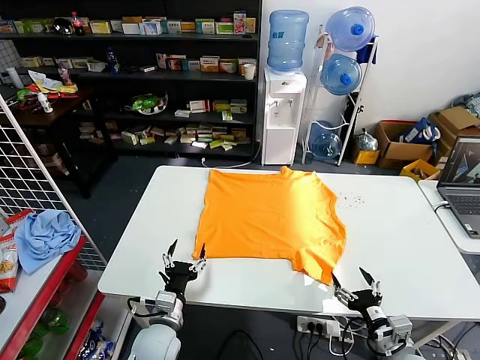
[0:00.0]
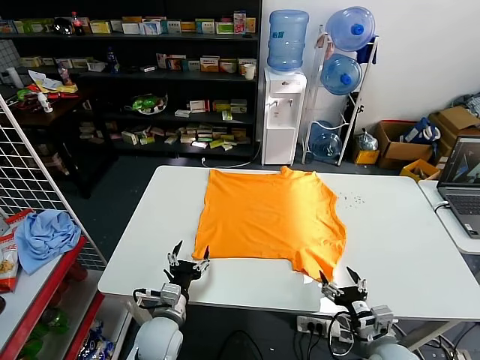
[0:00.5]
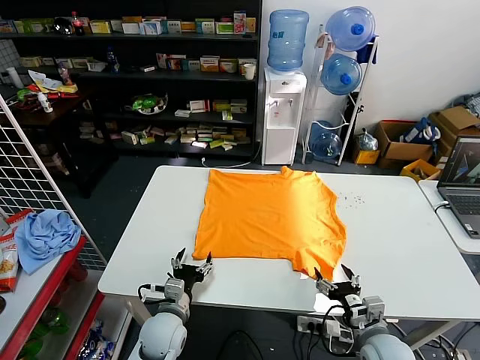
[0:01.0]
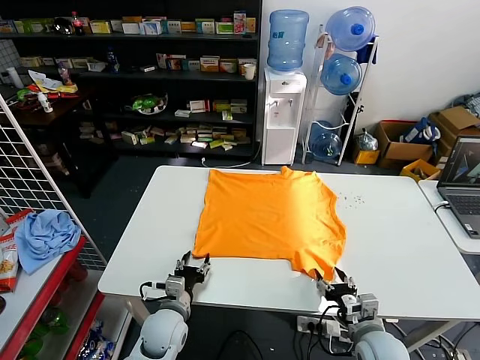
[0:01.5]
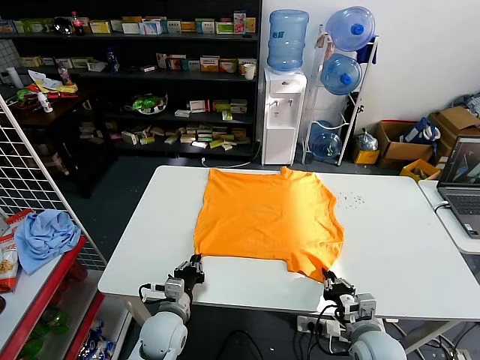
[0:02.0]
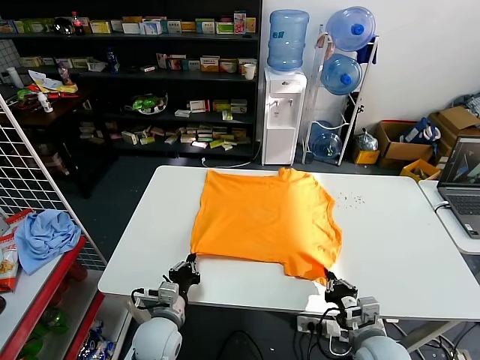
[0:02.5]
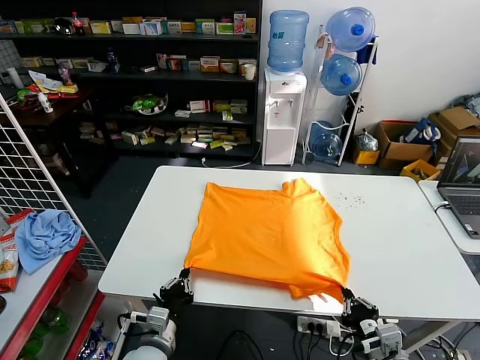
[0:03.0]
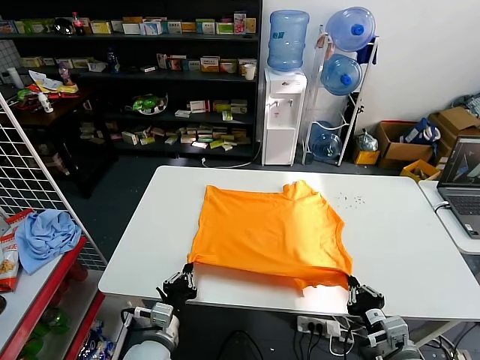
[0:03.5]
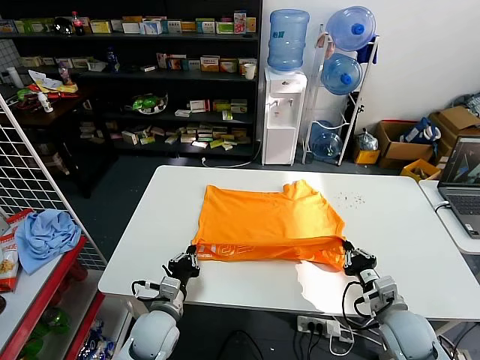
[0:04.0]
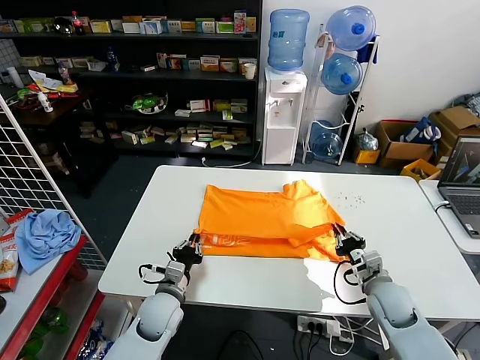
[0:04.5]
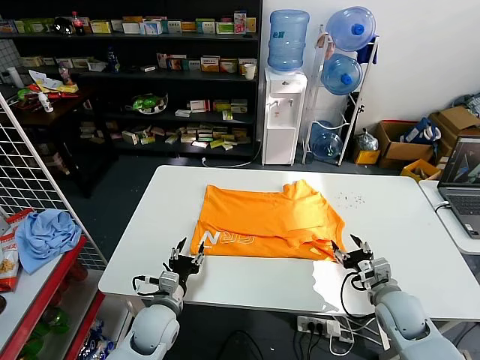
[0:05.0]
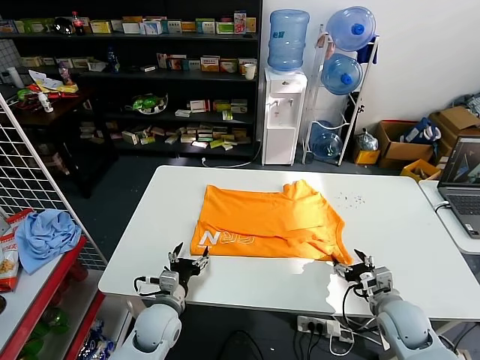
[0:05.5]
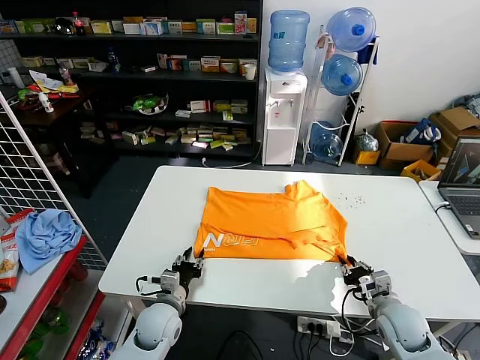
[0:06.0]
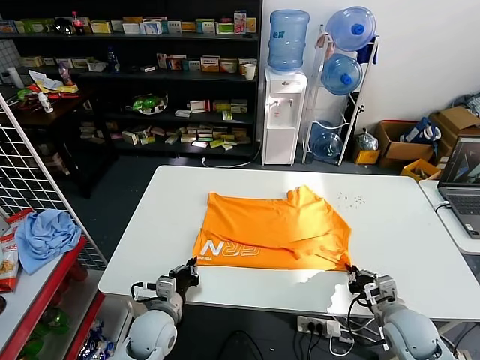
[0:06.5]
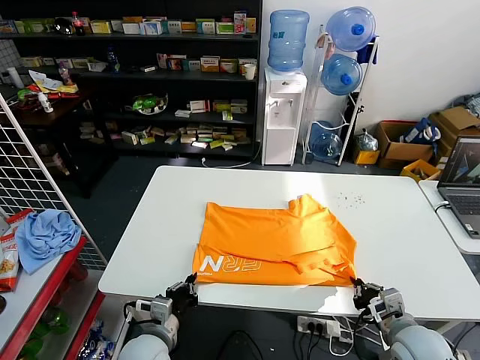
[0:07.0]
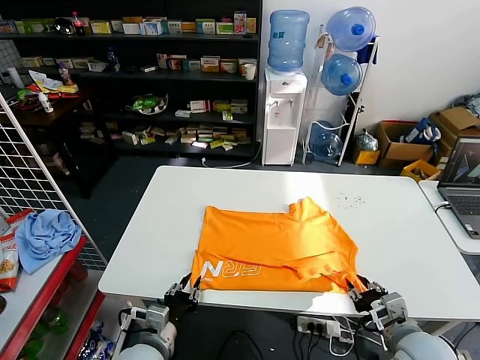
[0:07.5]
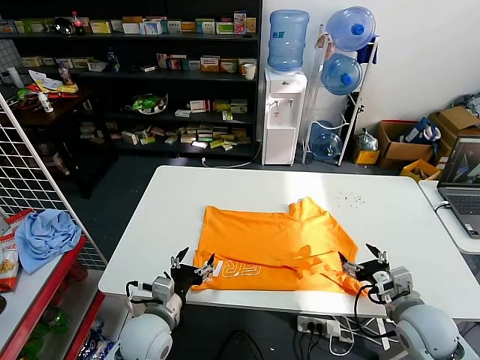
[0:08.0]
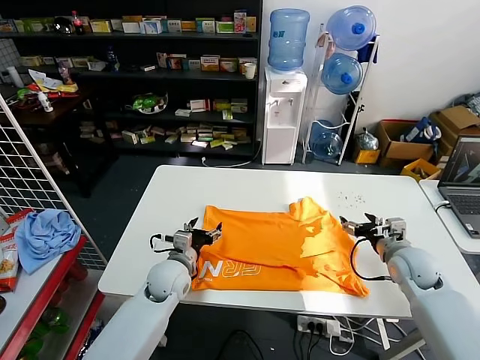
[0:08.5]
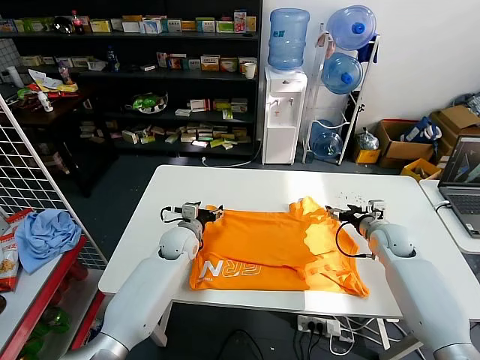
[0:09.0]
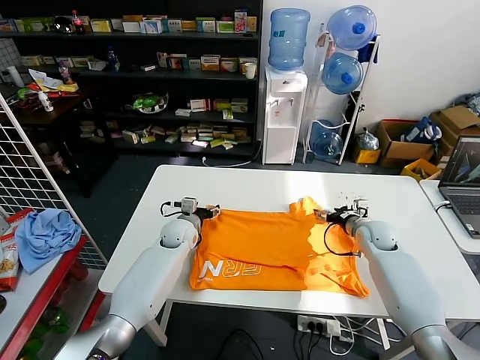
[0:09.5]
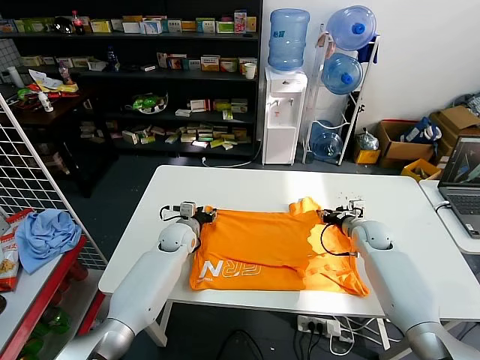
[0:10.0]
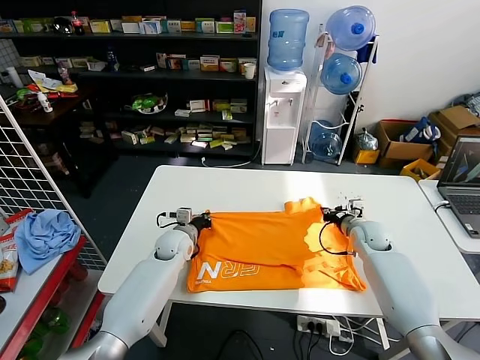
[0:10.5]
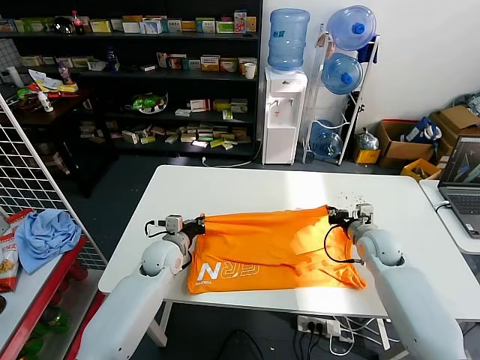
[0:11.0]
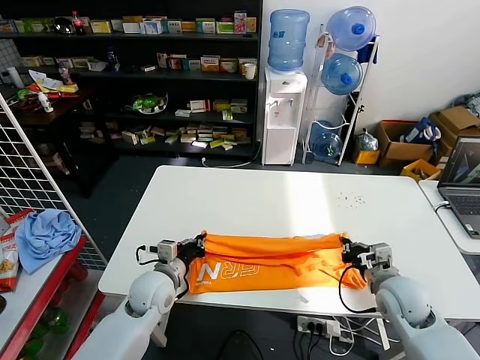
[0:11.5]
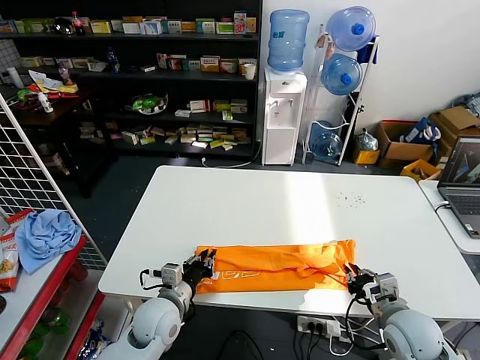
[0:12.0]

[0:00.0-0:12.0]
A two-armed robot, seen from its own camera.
Task of the whole recording: fold and organize the clothes.
Step, 0:00.0 to 0:02.0: use both grippers simultaneously to clamp the lower edge of the clothing fabric.
Step, 0:02.5 to 0:04.5: use both grippers to drag the lower edge of the fabric forward and fold it over the upper edge.
Step, 0:05.5 to 0:07.5: Drag the clothes downward with both gripper.
Step, 0:08.0 to 0:10.5: use both grippers simultaneously to clamp the upper edge of the clothing fabric.
0:02.0 to 0:04.0: The right gripper goes roughly 5 cm to the right, and reaches about 10 cm backward, then returns.
0:04.0 to 0:06.0: The right gripper opens, then closes once more, while the left gripper opens.
0:06.0 to 0:08.0: The left gripper heads upward and backward, covering about 10 cm, and opens. Meanwhile the right gripper travels upward by roughly 10 cm, and opens.
0:08.0 to 0:10.0: Both grippers travel together forward, about 25 cm. The right gripper closes.
0:10.0 to 0:12.0: The grippers both shift backward by about 25 cm. The left gripper closes.

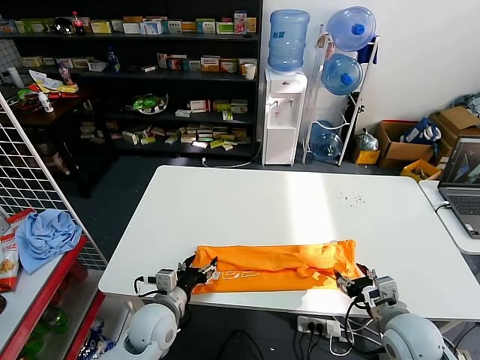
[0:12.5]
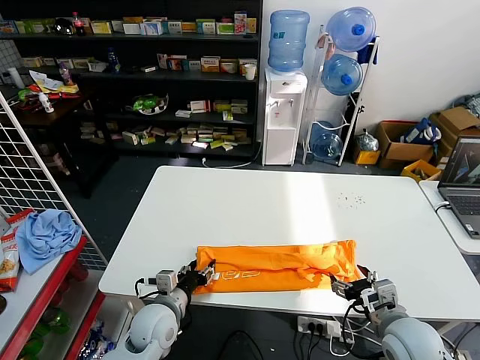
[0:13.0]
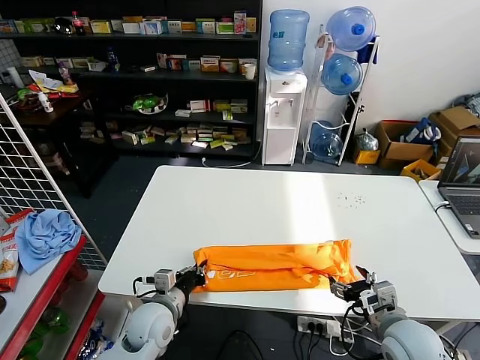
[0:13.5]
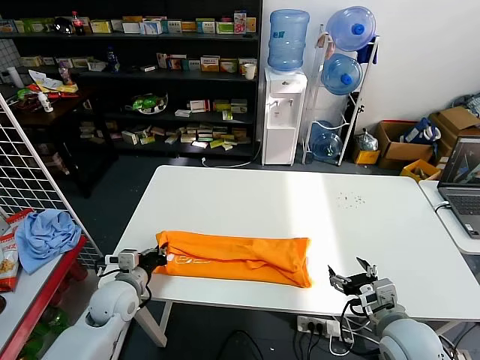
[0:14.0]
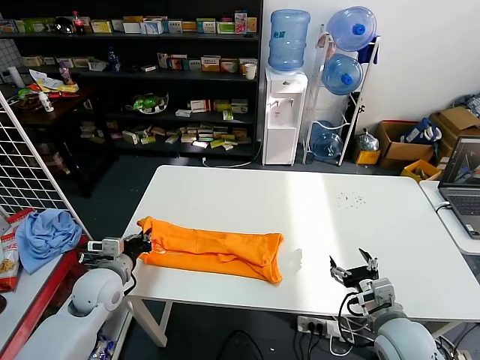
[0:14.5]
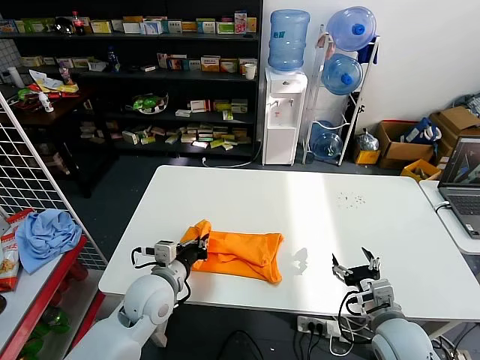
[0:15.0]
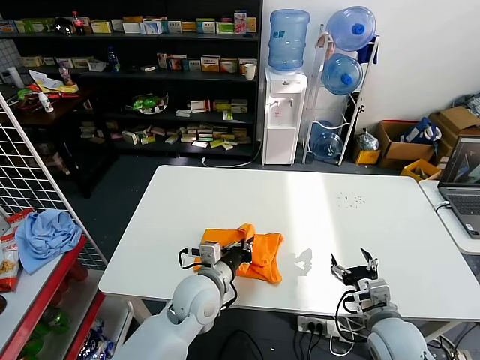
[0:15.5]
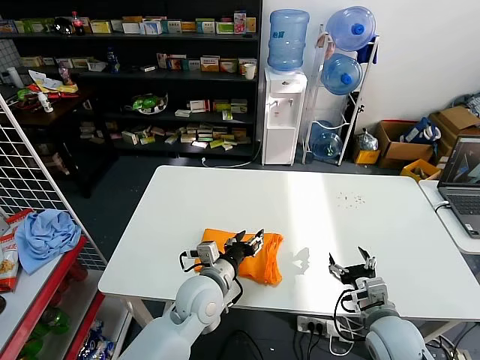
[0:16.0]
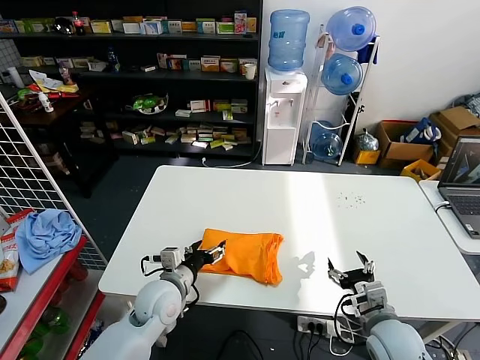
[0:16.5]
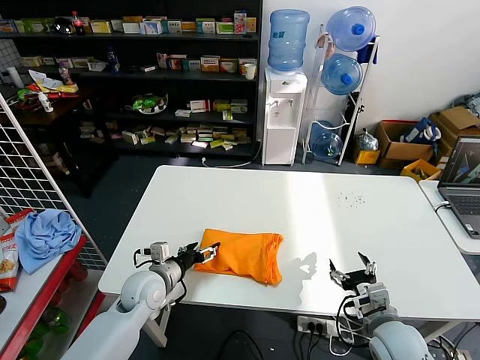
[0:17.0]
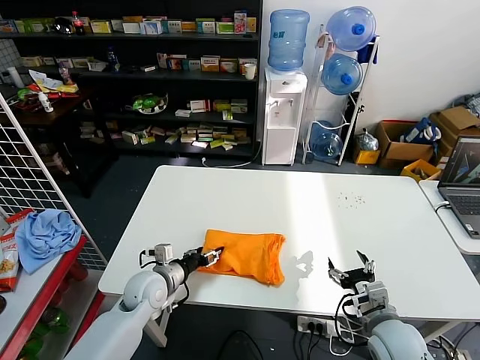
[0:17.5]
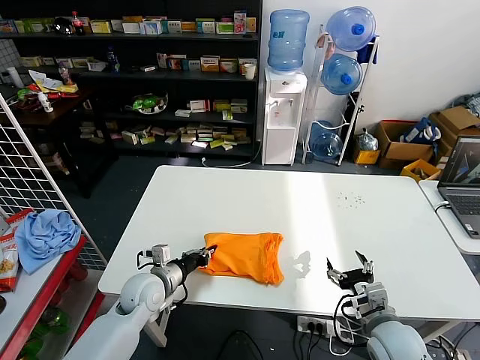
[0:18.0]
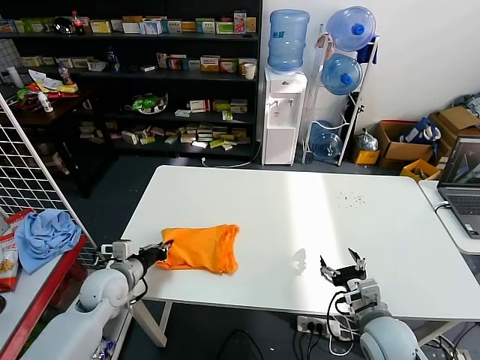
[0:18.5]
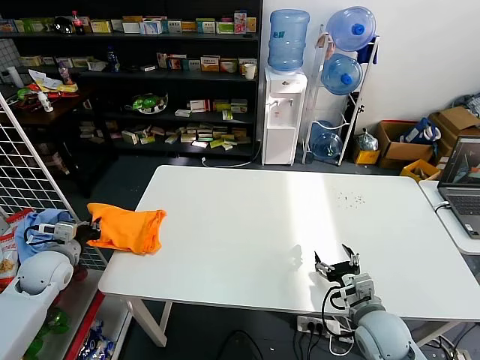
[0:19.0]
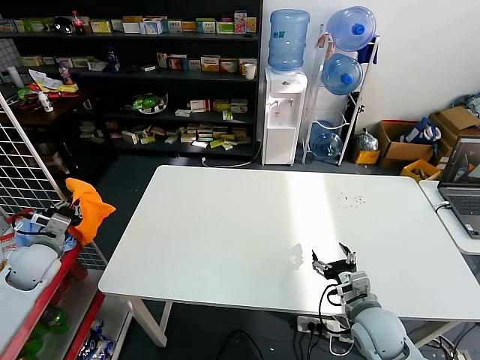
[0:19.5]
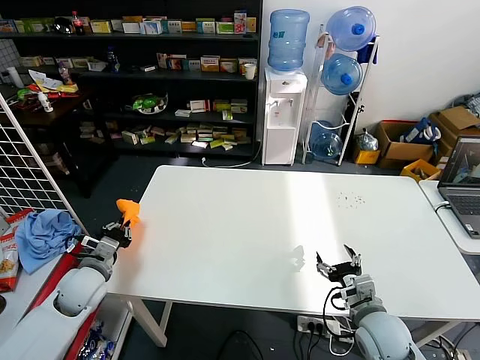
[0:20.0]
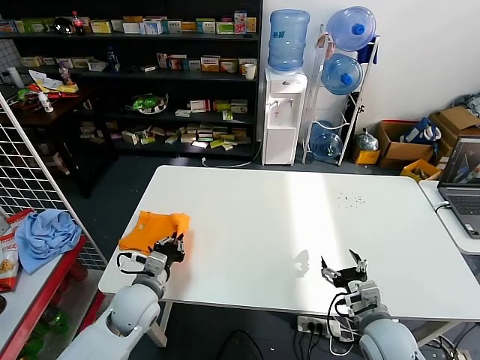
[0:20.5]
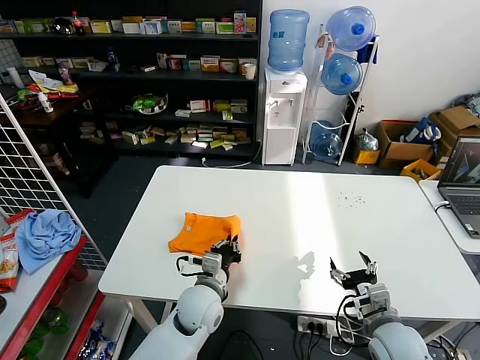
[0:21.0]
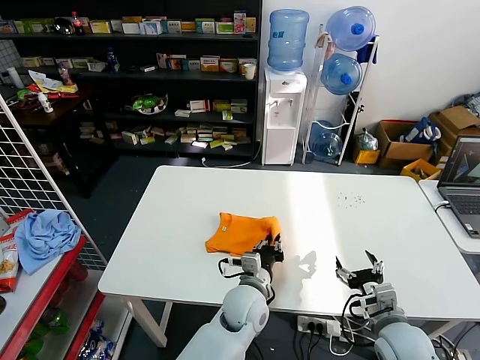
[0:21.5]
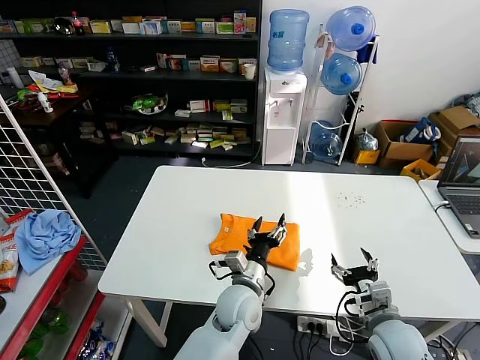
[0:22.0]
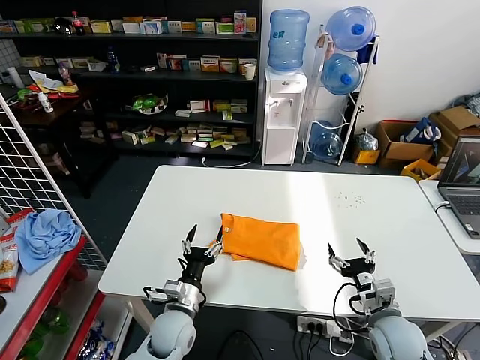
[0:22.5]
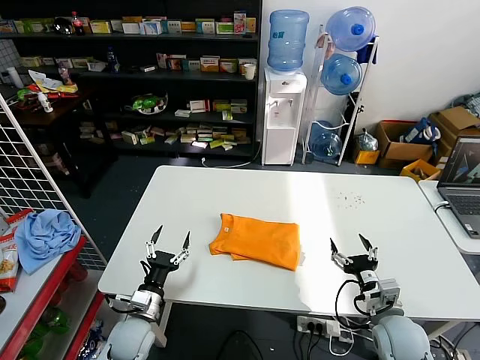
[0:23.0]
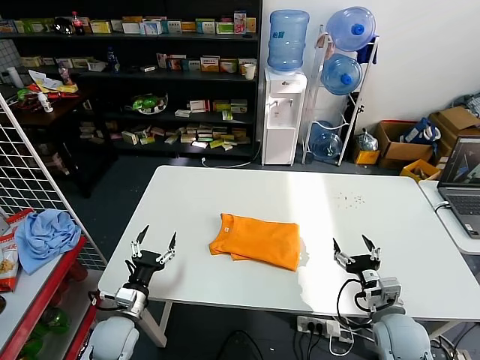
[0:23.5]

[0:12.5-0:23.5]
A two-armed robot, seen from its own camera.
Task of the whole recording: fold and organize the clothes.
Step, 0:13.0 to 0:13.5: use the left gripper to clamp the left edge of the fabric.
Step, 0:14.0 to 0:15.5: use the left gripper to drag the left edge of the fabric to the left and folds it over the right edge.
Step, 0:16.5 to 0:21.5: Flip the folded clothes over with left gripper.
0:12.5 to 0:14.5: The left gripper is displaced to the left, upward and forward by about 15 cm, and closes up.
0:14.5 to 0:16.0: The left gripper goes approximately 25 cm to the right, and opens up.
0:16.0 to 0:18.0: The left gripper shifts roughly 15 cm to the left, and closes.
0:18.0 to 0:20.0: The left gripper travels to the left by some 15 cm.
0:20.0 to 0:21.5: The left gripper moves to the right, approximately 40 cm.
0:21.5 to 0:23.5: The left gripper moves to the left, some 30 cm, and opens up.

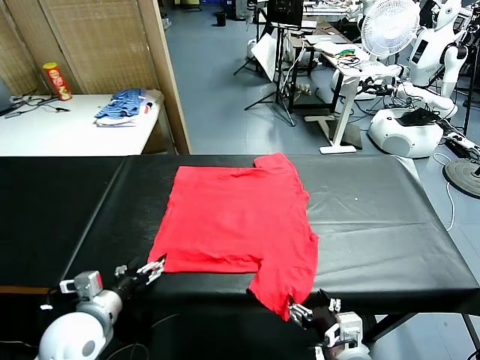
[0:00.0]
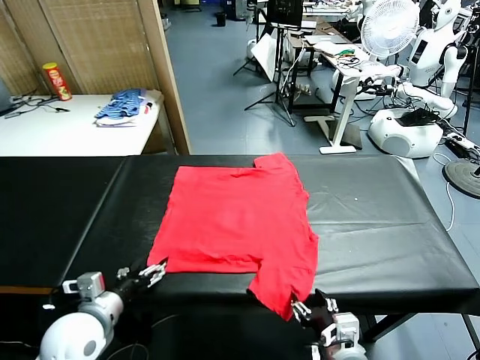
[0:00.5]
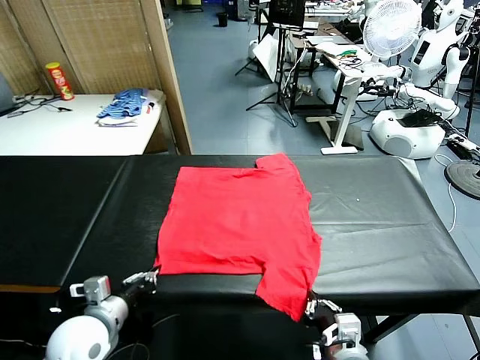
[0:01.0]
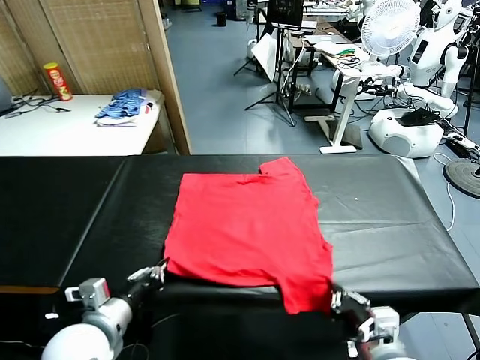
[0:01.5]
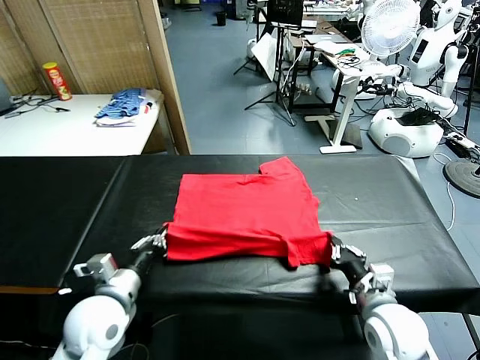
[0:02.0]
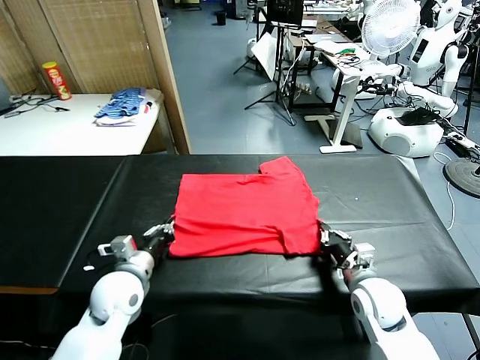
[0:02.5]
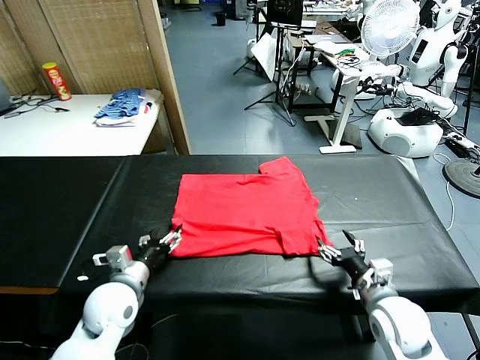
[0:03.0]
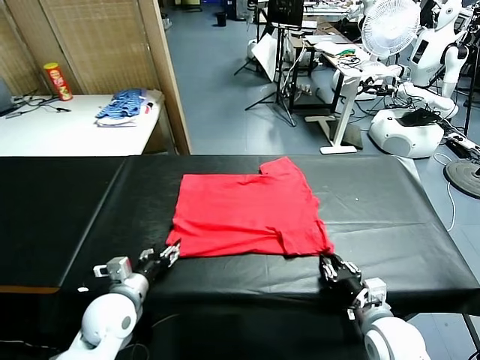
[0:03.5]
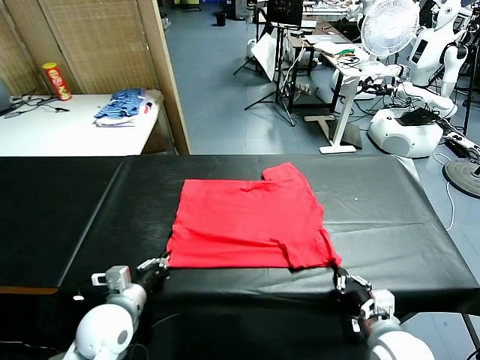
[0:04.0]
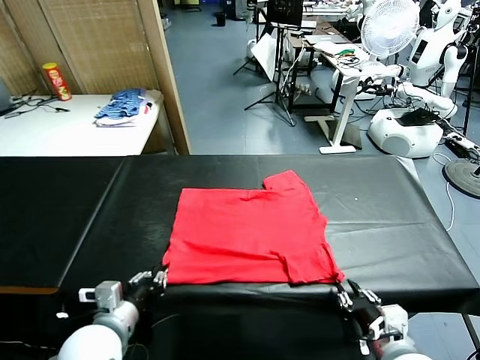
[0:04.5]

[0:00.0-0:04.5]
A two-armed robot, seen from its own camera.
Task of the whole recording: fold and organize the clothes.
Step, 0:00.0 to 0:01.0: use both grippers simultaneously to clamp the lower edge of the clothing fabric.
Step, 0:01.5 to 0:02.5: use both grippers to drag the lower edge of the fabric forward and fold it over the upper edge.
0:02.0 to 0:04.5: The left gripper goes some 5 cm backward, and opens. Meanwhile the right gripper travels backward and upward by roughly 15 cm, and opens its fingers.
